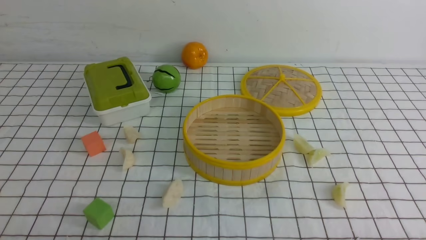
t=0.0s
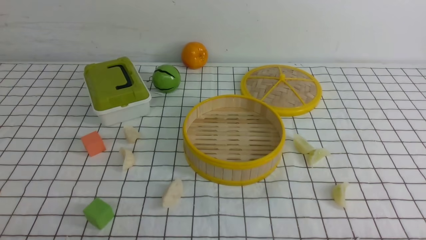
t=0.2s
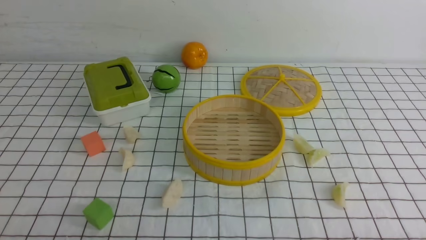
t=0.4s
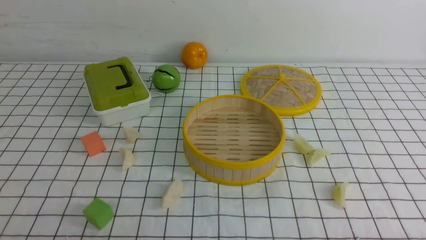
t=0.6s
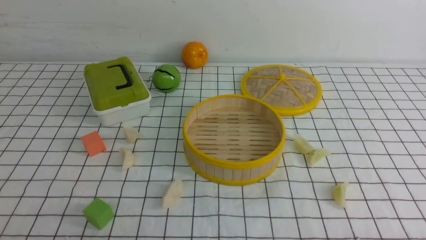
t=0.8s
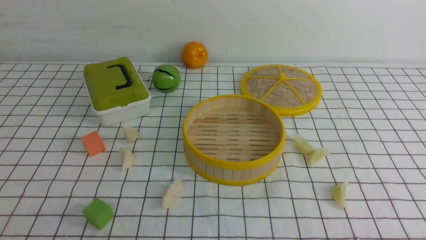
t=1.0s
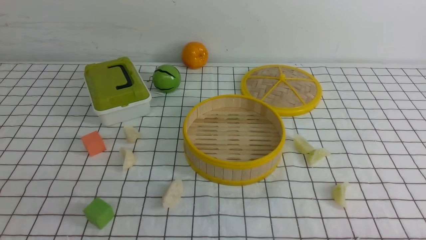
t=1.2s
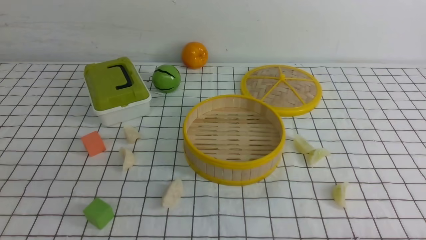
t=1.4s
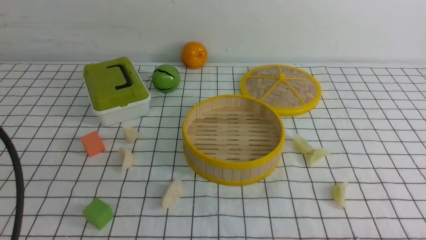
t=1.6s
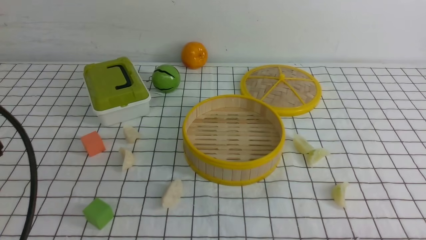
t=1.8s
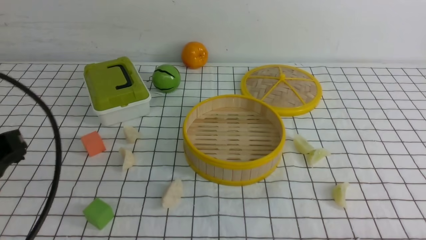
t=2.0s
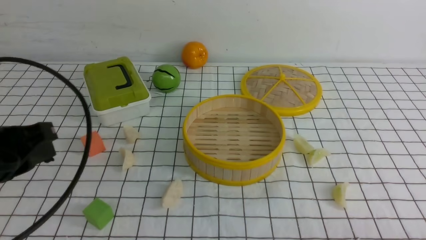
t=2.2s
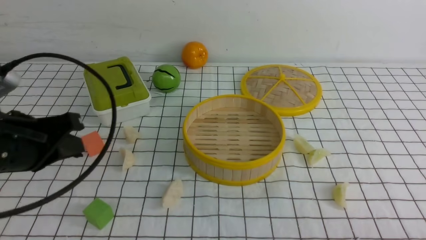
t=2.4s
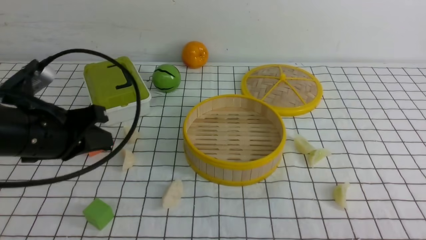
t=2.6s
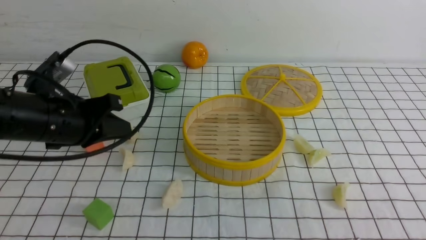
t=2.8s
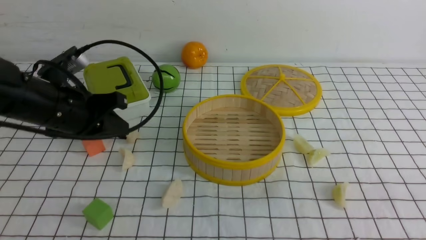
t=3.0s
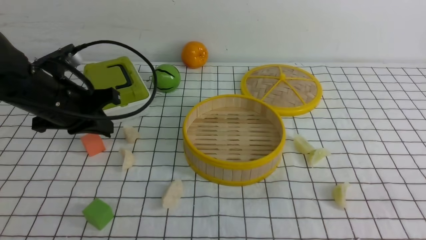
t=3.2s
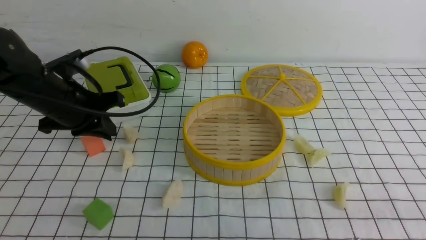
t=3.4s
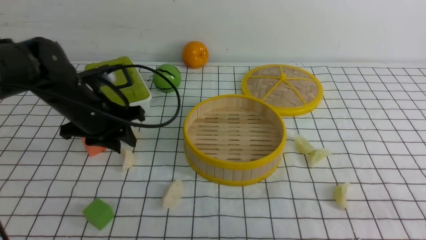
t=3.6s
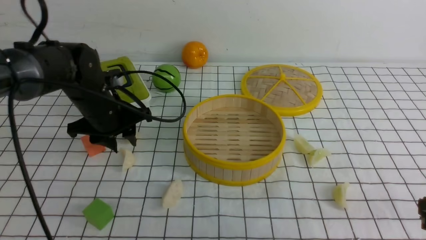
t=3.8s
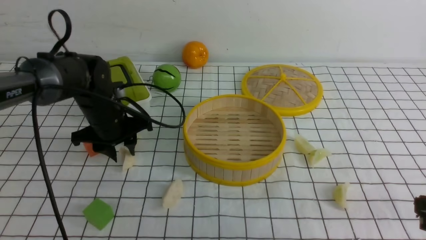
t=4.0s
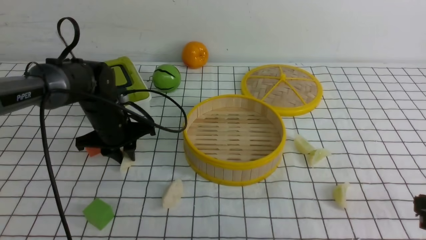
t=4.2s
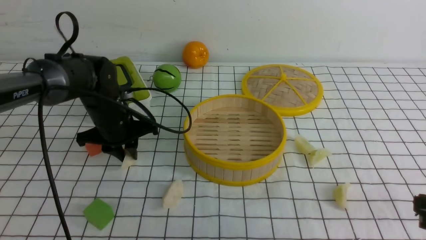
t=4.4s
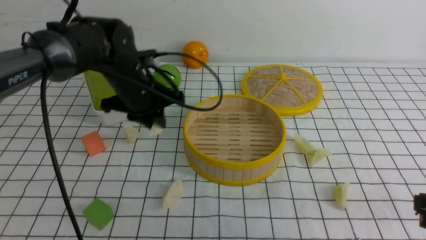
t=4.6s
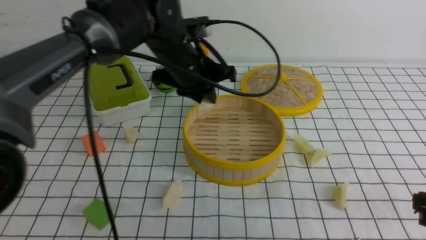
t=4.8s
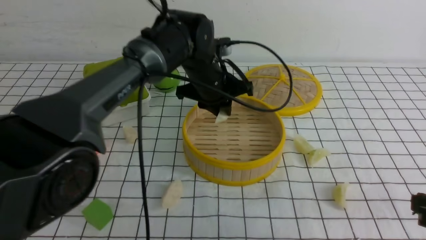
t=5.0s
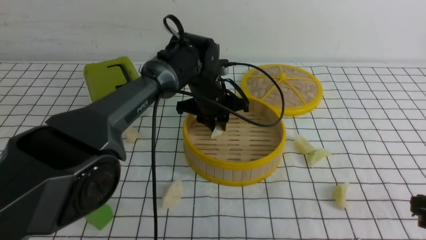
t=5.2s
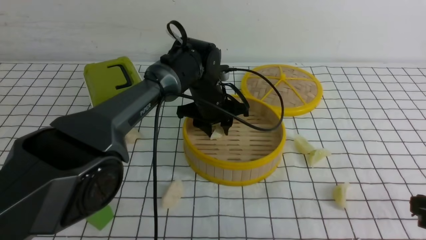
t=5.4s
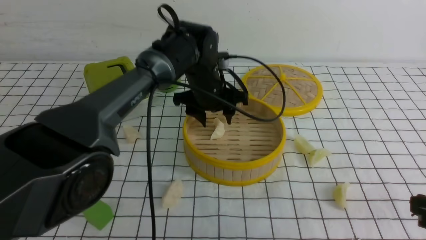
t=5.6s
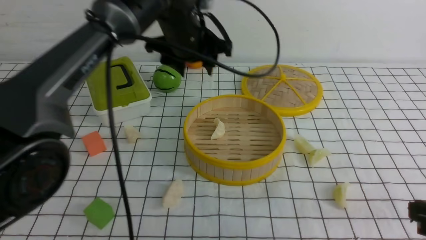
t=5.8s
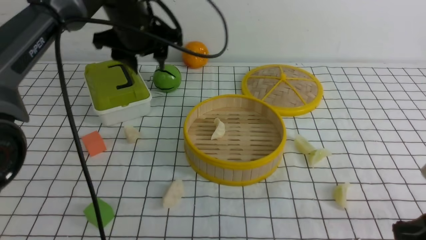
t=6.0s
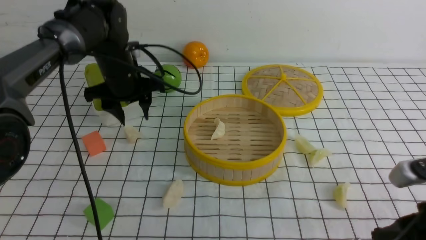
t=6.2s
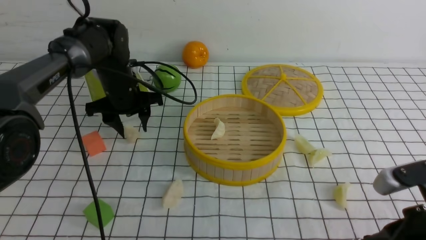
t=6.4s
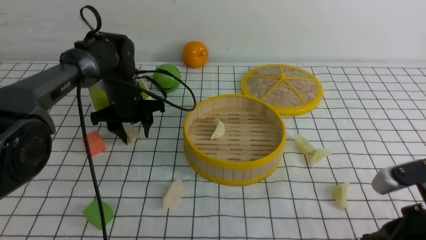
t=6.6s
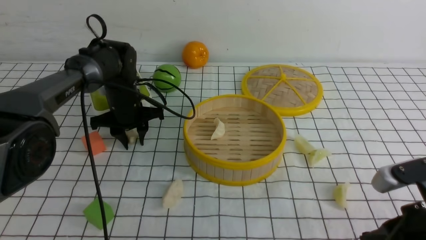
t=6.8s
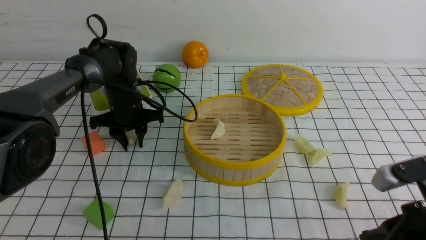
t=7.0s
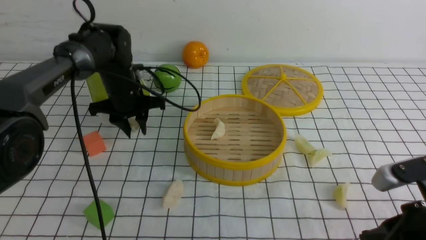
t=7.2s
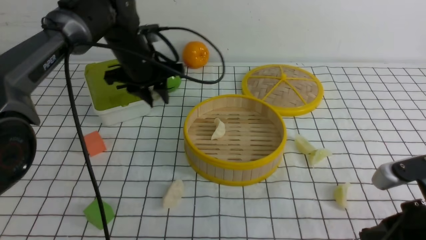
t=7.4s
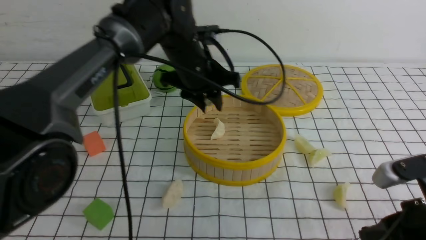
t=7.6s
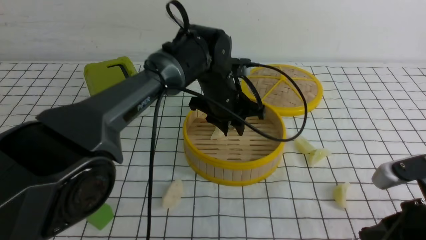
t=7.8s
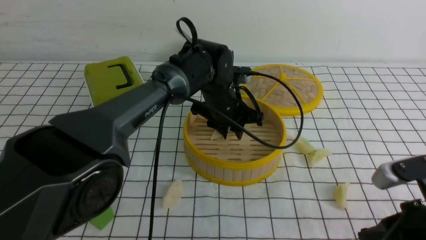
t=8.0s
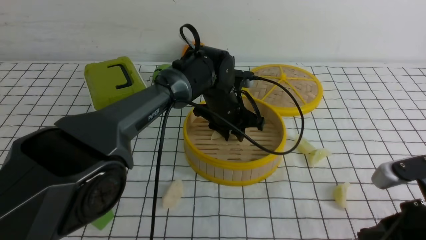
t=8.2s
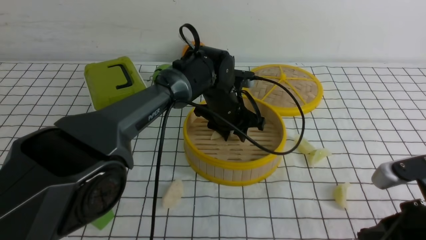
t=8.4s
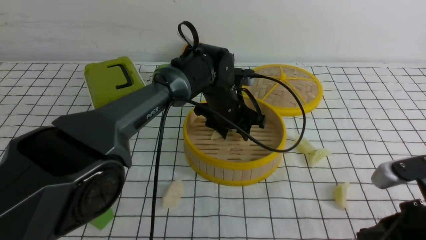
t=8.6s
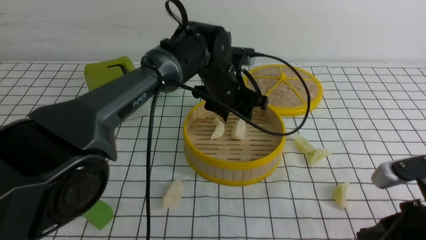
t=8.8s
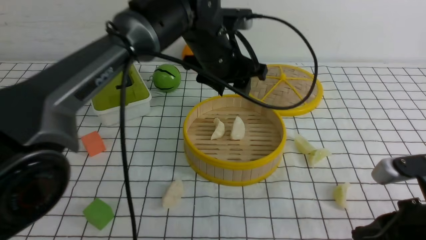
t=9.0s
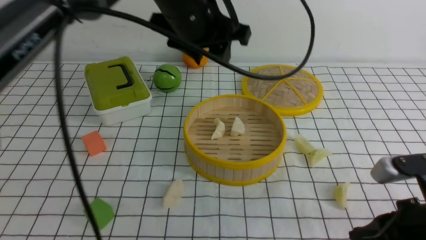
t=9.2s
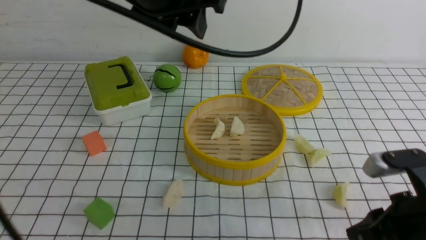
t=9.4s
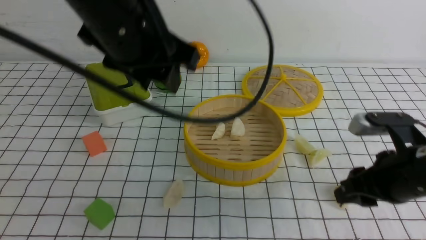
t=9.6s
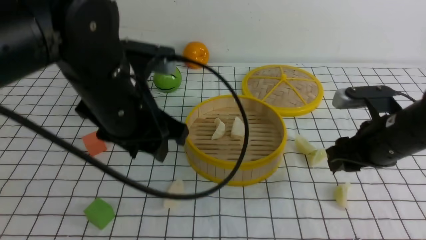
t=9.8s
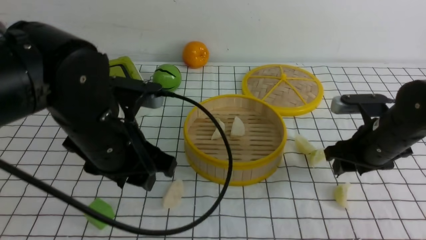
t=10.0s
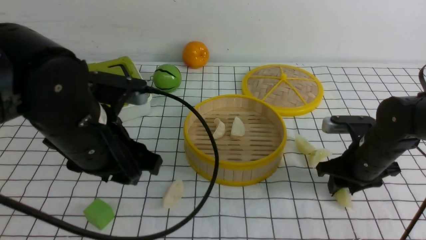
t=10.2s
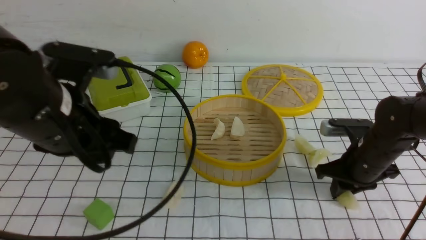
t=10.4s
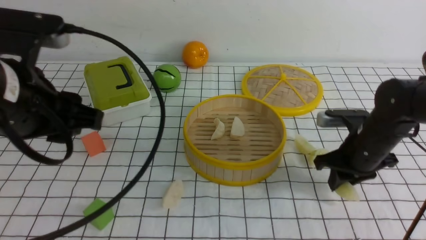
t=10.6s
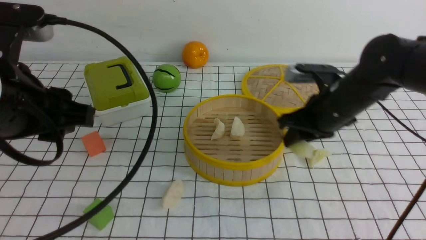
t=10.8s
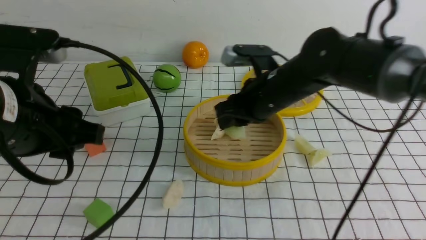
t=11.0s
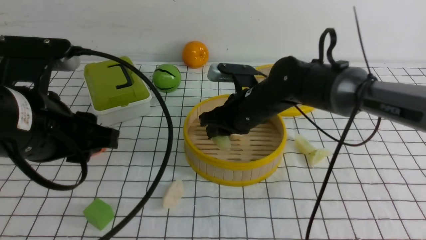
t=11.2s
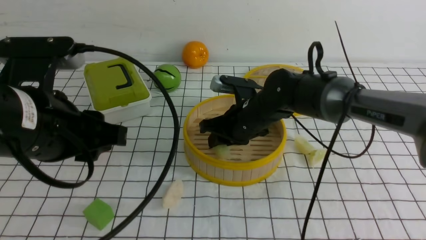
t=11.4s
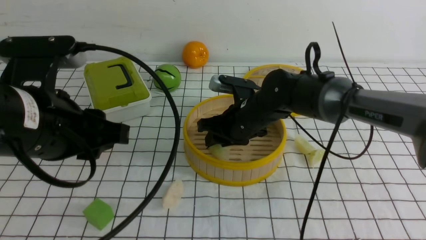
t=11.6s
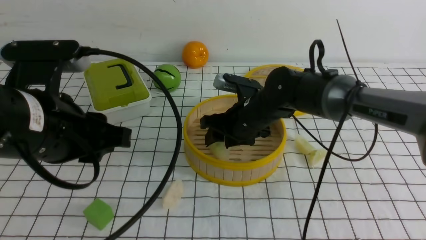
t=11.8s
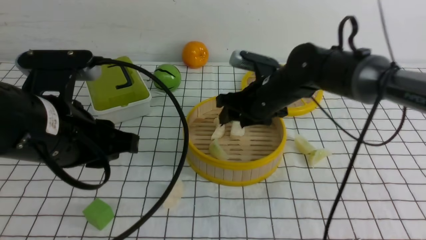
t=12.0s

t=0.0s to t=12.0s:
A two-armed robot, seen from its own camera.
Task of the whole recording: put the dumplings into the steamer on the table with the white tablecloth.
Step, t=0.0s to t=4.2s: use the left arm to grab a dumpling.
Step, t=4.6s to t=5.6s: use the left arm to put the dumpling into the steamer.
Step, t=6.0s to t=6.8s: use the left arm to grab a dumpling.
Step, t=7.0s to t=8.8s: use the left arm to put the dumpling into the steamer.
Step, t=9.0s to t=10.2s: use the right arm to grab a dumpling.
Step, t=10.6s to t=11.8s: use the right arm to put the dumpling into the steamer.
t=0.0s to t=1.6s: The left gripper heads upward and forward, covering some 10 cm, and closes.
t=1.6s to t=3.0s: The left gripper travels forward by roughly 20 cm.
t=3.0s to t=4.4s: The left gripper shifts some 15 cm forward, downward and to the right, and opens. The right gripper goes approximately 5 cm forward.
t=4.4s to t=6.0s: The left gripper moves upward, about 10 cm, reaches roughly 15 cm to the right, then returns, and opens up.
t=6.0s to t=7.6s: The left gripper travels to the right by some 10 cm, travels downward and back again, some 15 cm each way, and closes up.
t=7.6s to t=9.0s: The left gripper travels upward by some 5 cm, and opens.
t=9.0s to t=10.4s: The right gripper moves forward, approximately 20 cm, and opens its fingers; the left gripper moves backward and to the left, some 25 cm.
t=10.4s to t=12.0s: The right gripper travels to the left, upward and forward by about 15 cm, and opens.

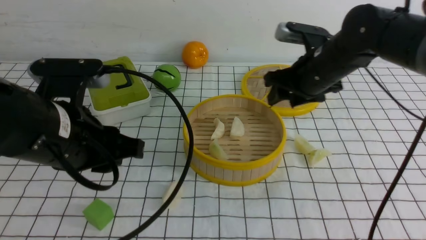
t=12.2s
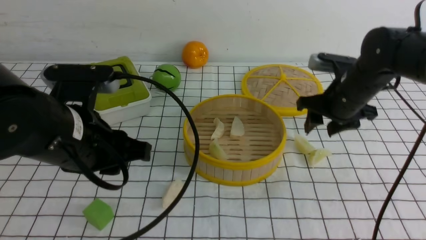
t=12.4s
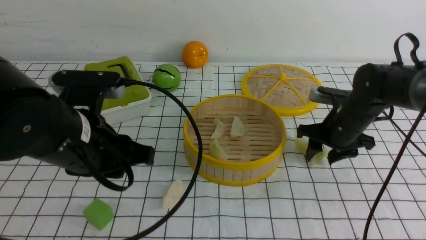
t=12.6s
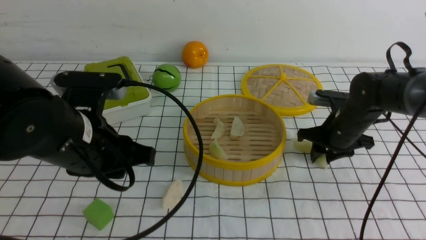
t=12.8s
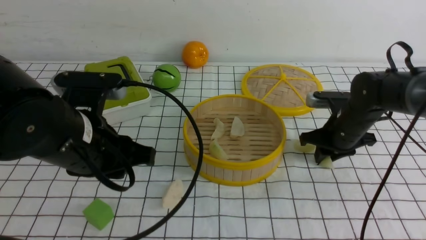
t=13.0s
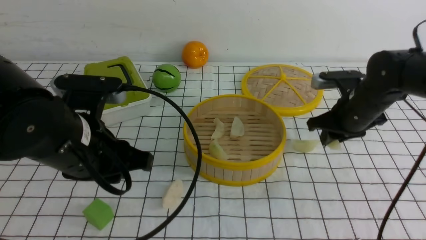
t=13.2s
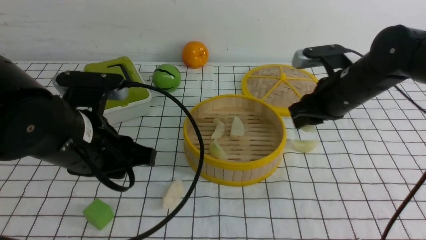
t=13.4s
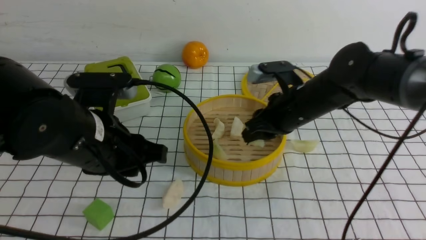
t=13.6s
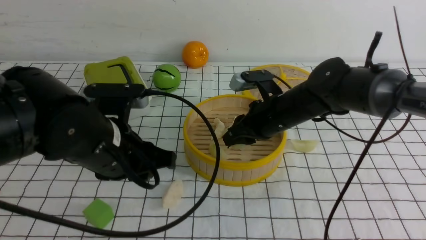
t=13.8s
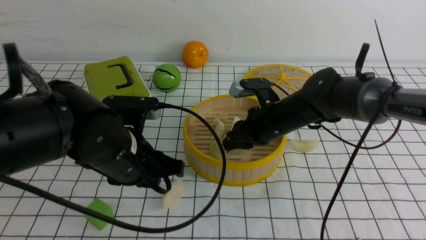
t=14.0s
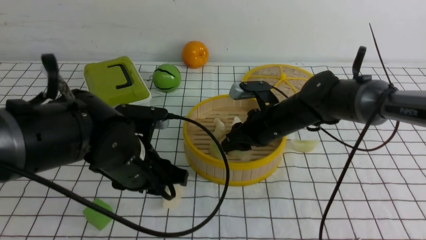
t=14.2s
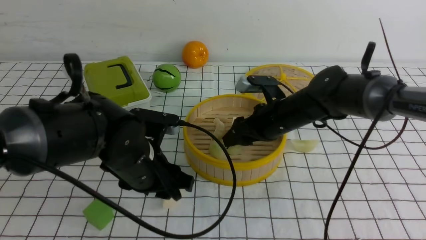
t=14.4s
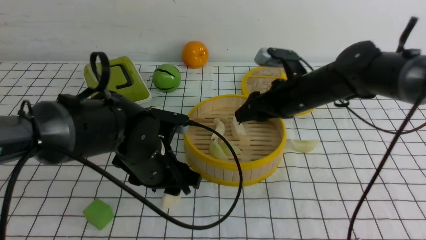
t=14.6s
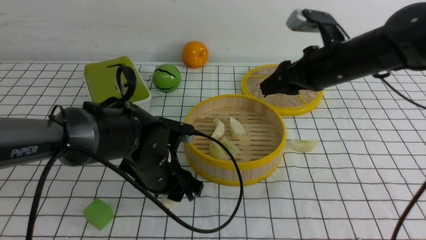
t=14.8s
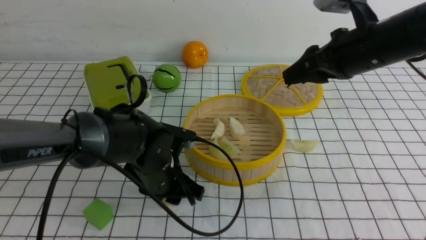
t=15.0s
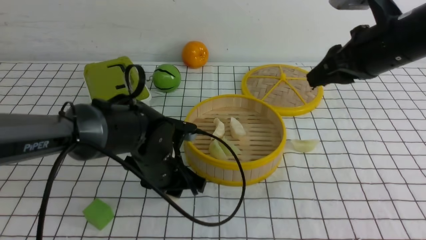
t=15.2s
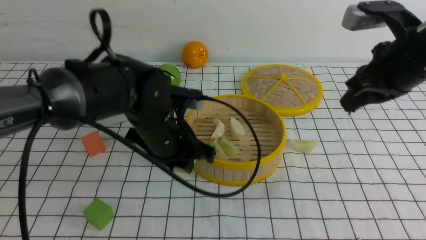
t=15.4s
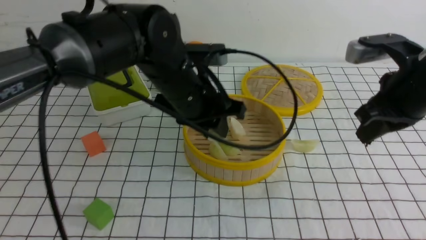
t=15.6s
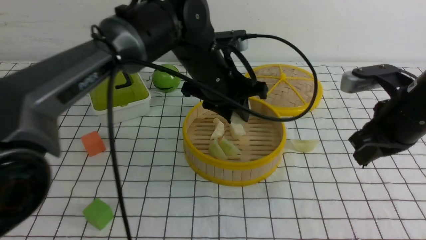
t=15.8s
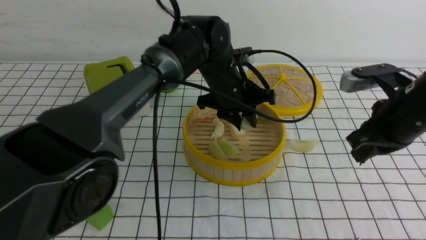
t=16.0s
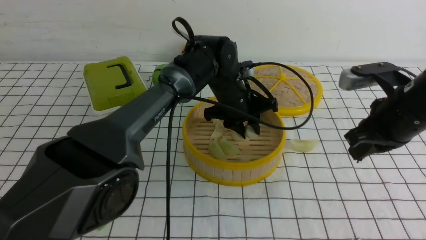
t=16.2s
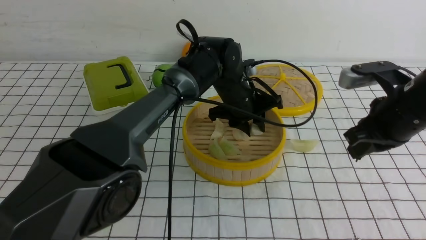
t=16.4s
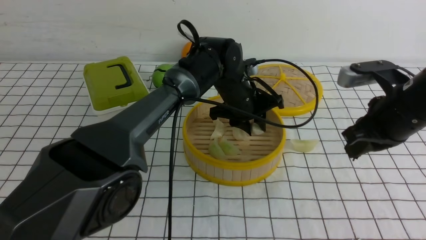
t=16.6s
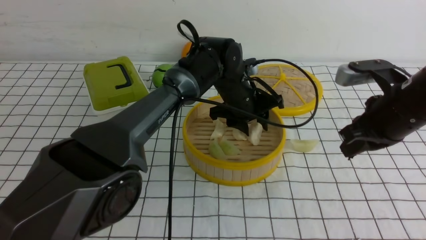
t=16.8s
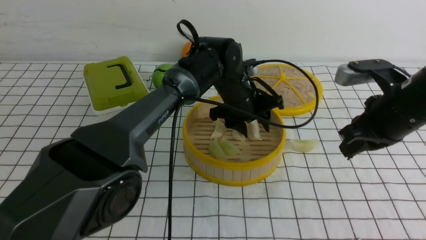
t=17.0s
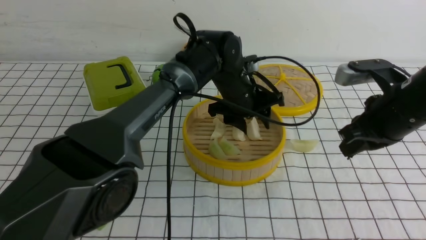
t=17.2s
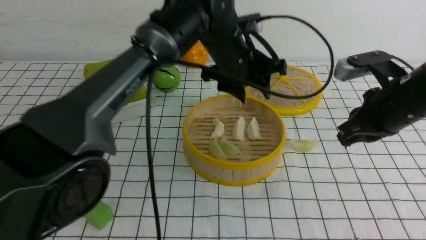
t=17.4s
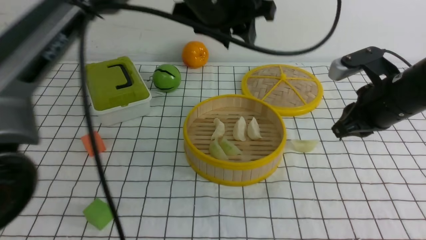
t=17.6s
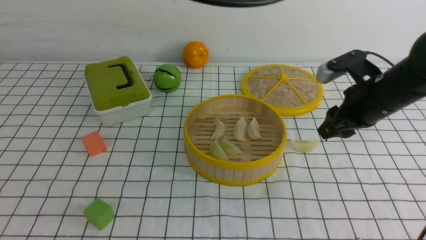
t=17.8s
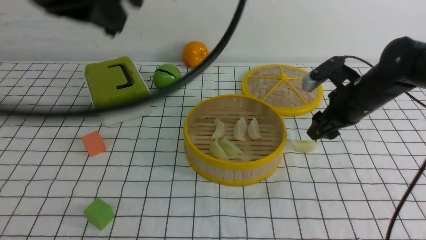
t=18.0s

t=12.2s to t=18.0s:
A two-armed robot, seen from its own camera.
Task of the whole recording: put the dumplings into the steamer on the table with the white tablecloth.
Step, t=12.2s to t=12.8s: use the right arm to grab a dumpling.
Step, t=13.0s to t=14.4s: use the right arm to put the dumpling into the steamer.
Step, t=14.6s to t=14.8s: use the left arm to grab a dumpling.
Step, t=15.2s to t=17.0s: use the left arm to put the dumpling into the steamer.
t=12.2s to t=13.6s: The right gripper travels to the right and back again, about 5 cm each way, and closes.
t=13.6s to t=15.0s: The left gripper shifts approximately 15 cm downward, forward and to the right, while the right gripper moves upward and to the right, some 15 cm.
t=15.0s to t=16.6s: The left gripper shifts some 20 cm forward and to the right, while the right gripper heads downward and backward, covering some 10 cm, and closes.
t=16.6s to t=18.0s: The right gripper shifts some 10 cm forward and downward, and opens; the left gripper is displaced upward, backward and to the left by roughly 40 cm, and closes its fingers.
